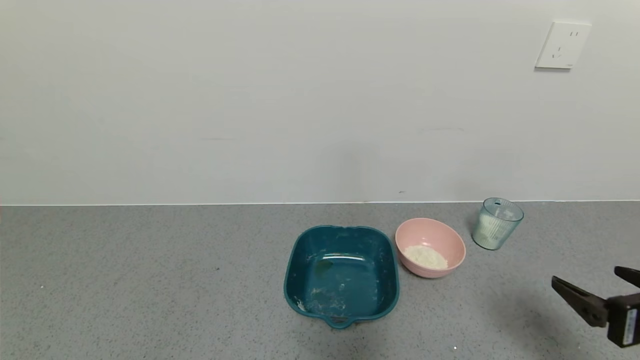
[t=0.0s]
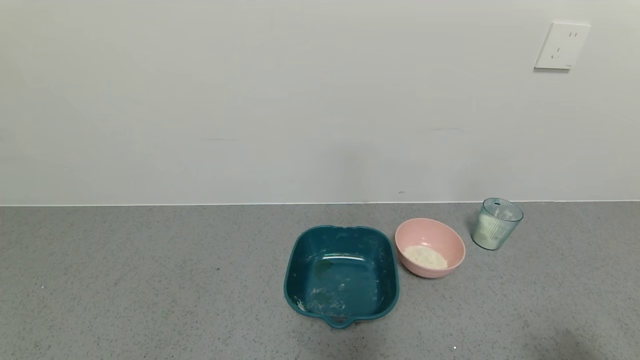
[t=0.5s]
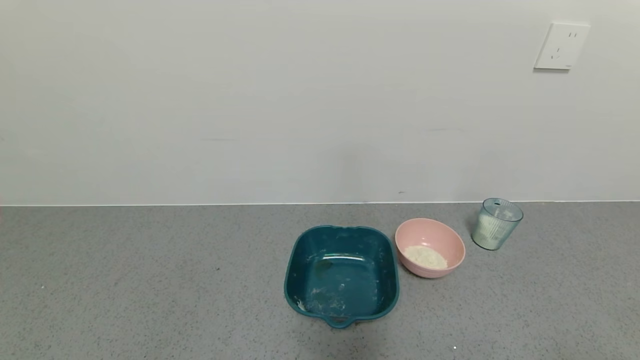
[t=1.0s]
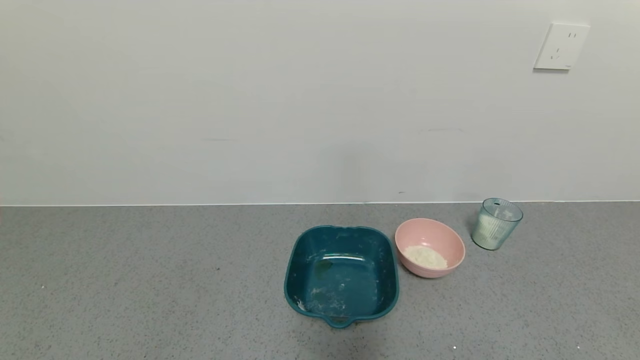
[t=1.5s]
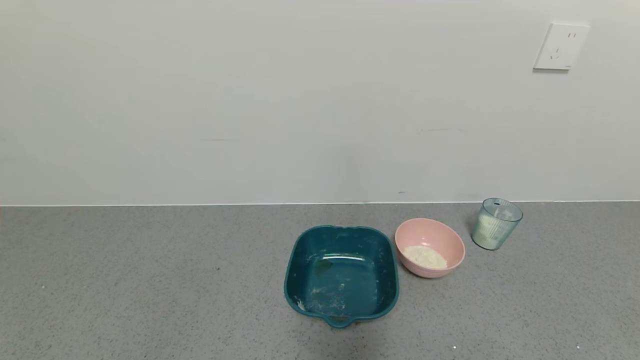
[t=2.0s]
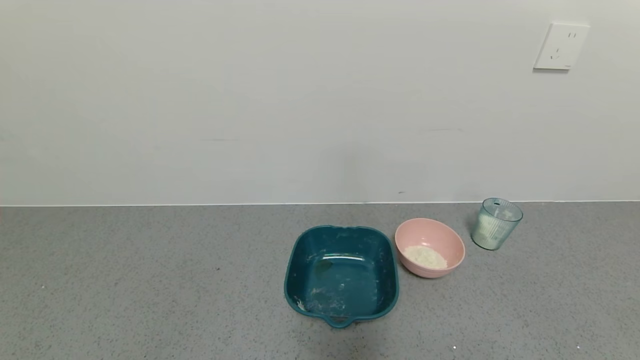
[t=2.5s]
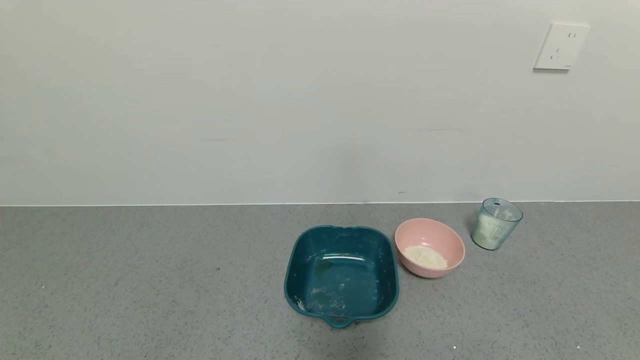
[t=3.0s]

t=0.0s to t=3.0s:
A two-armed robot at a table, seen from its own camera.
Task of the whole recording: use a gripper to pick up the cup and pour the powder into a bowl or tray.
t=0.0s to t=1.5s: The right gripper travels backward by some 20 cm.
